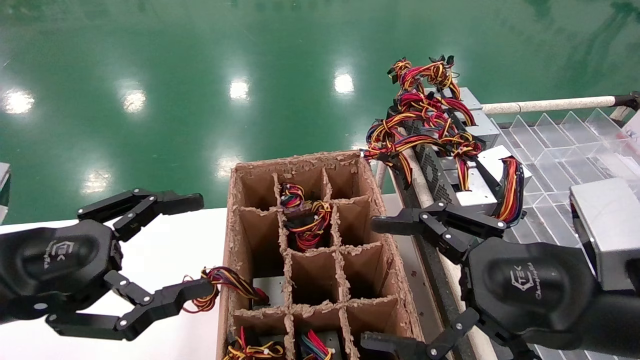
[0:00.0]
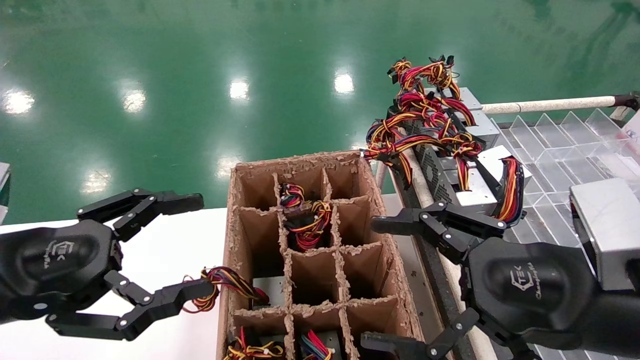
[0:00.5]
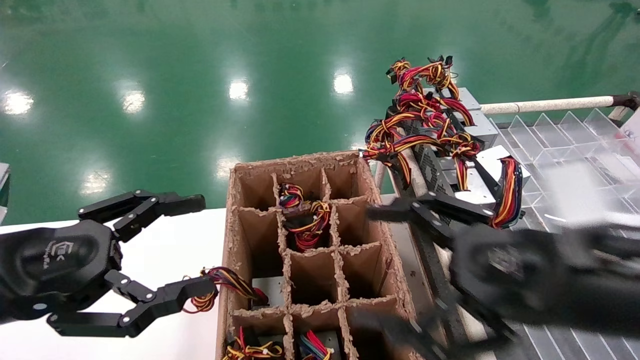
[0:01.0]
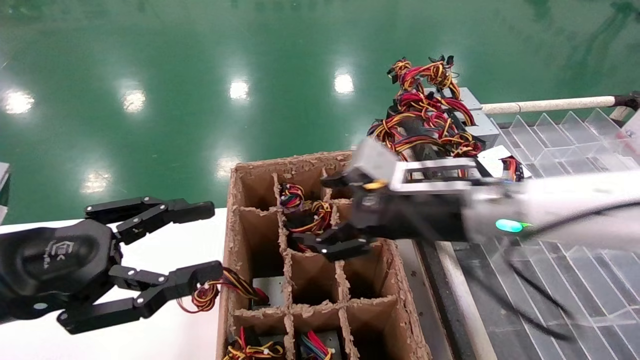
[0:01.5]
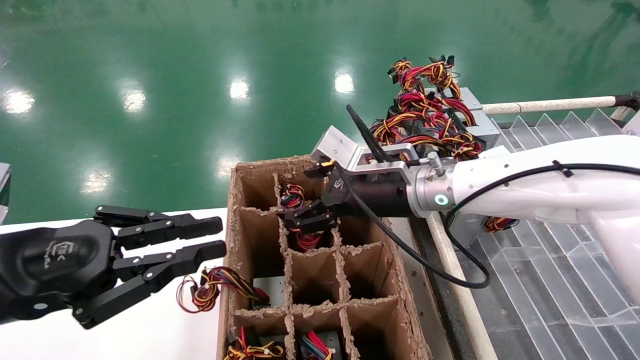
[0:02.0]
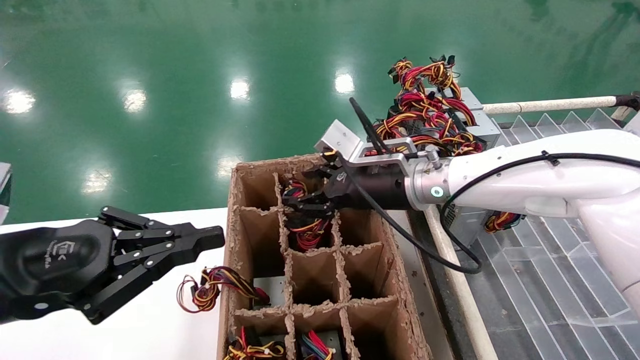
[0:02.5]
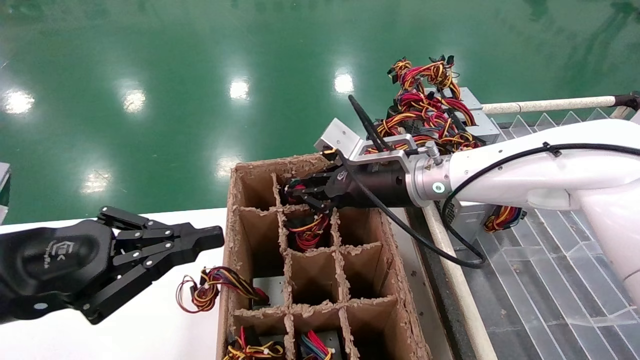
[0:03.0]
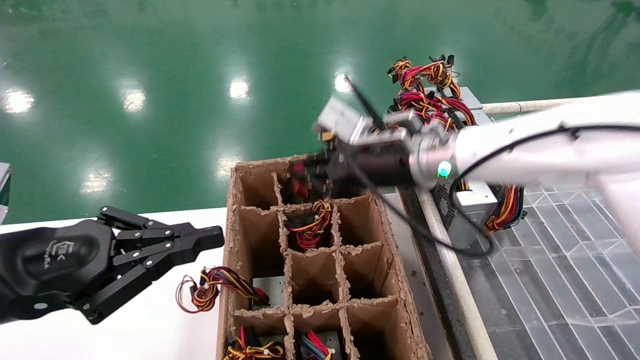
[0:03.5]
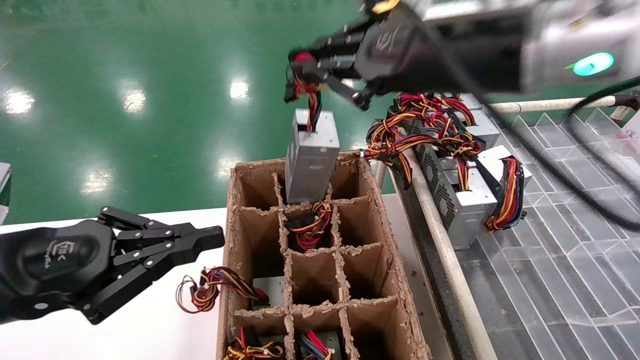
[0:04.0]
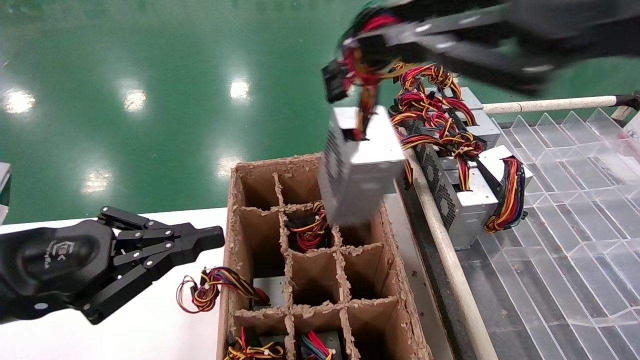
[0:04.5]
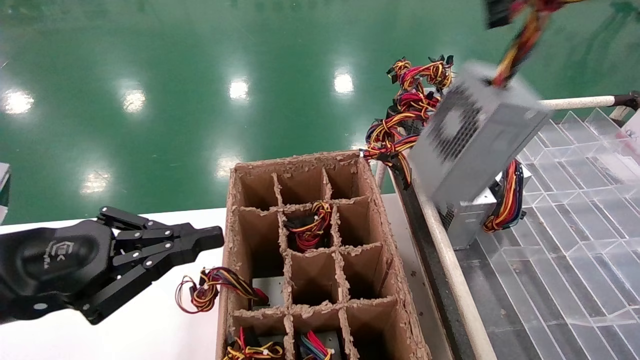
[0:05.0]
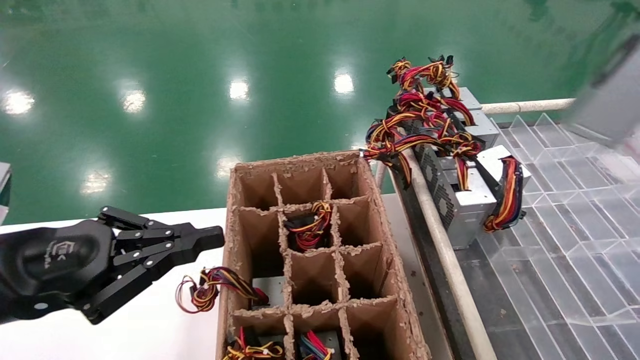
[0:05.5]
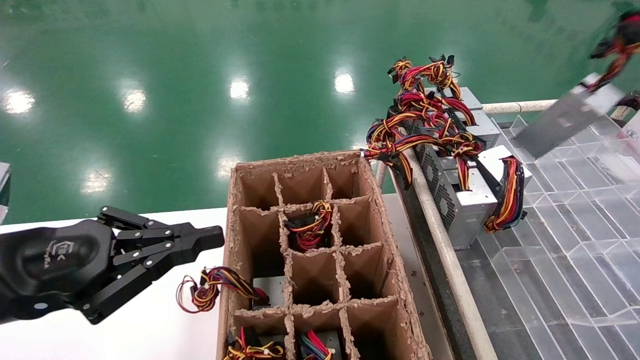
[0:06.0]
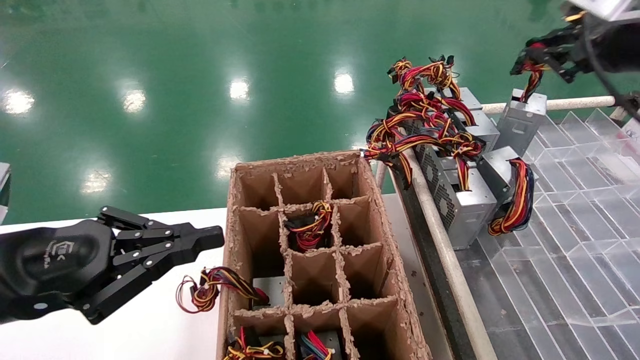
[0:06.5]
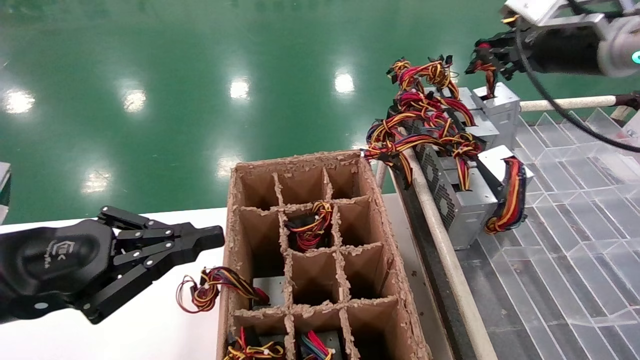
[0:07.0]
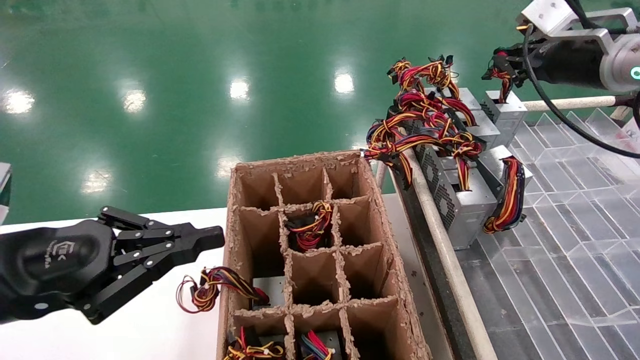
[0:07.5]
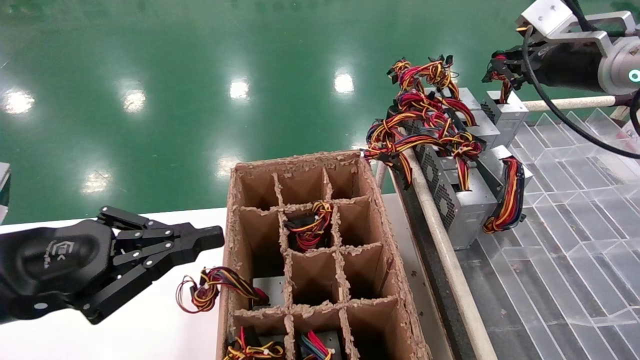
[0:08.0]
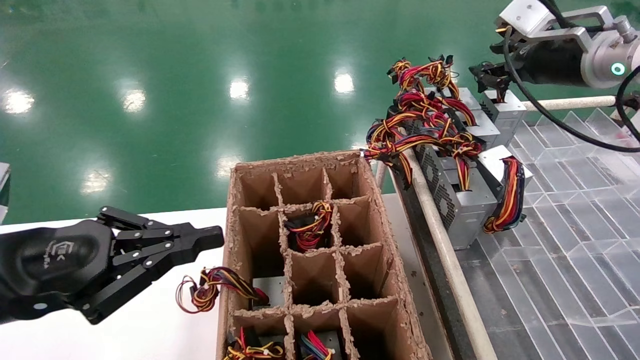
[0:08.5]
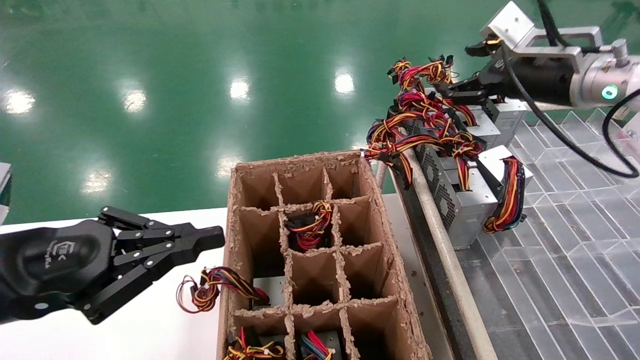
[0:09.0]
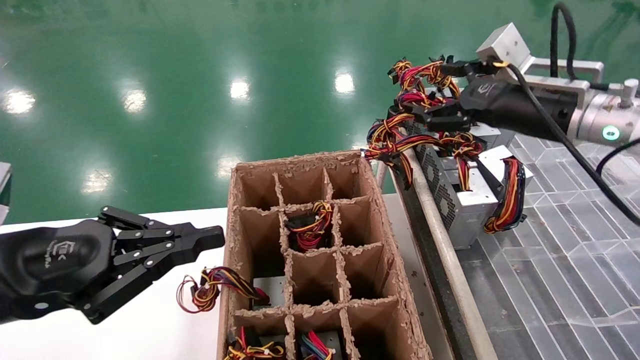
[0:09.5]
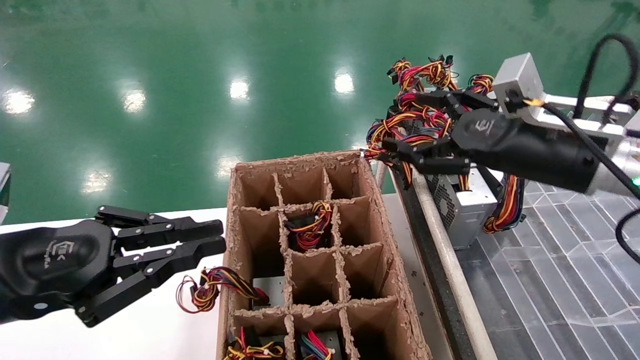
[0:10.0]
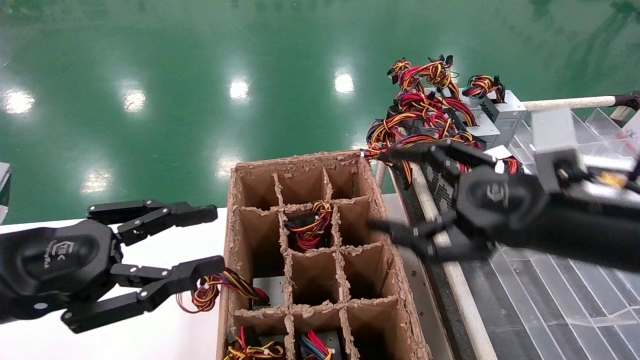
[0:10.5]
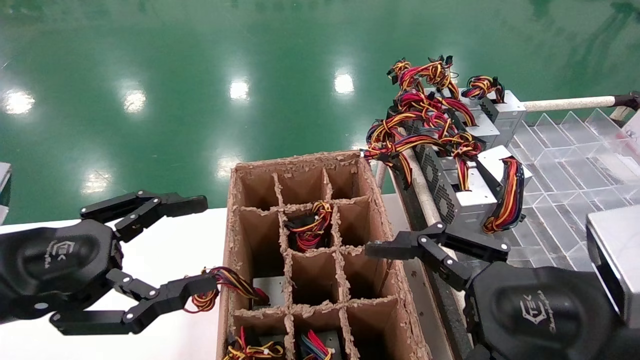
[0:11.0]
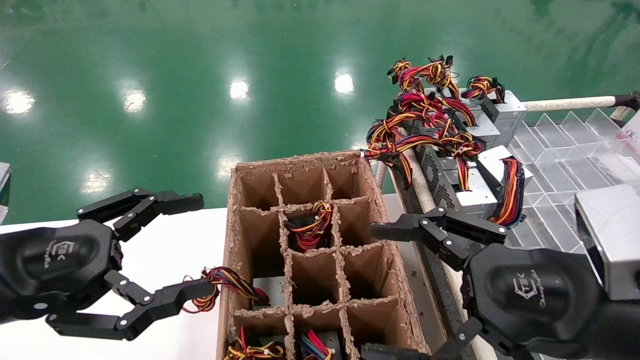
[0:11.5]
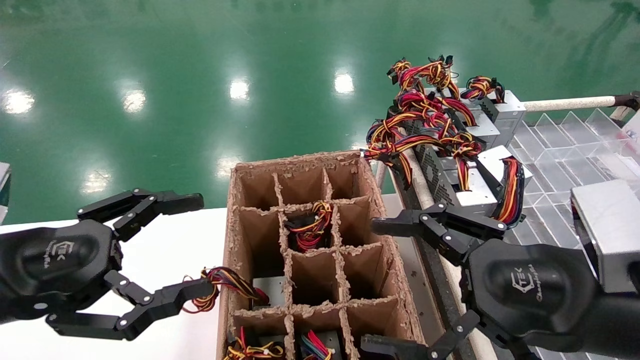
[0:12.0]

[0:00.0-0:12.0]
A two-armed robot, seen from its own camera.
Step, 0:01.5 to 0:03.0: Grab the main unit power supply from the containment box.
Step, 0:03.5 to 0:09.0: Place the main unit power supply in the designated area.
0:00.0 to 0:02.0: The right gripper moves forward and to the left, some 25 cm. The left gripper closes.
0:02.0 to 0:04.0: The right gripper is displaced upward and backward by some 20 cm, and closes.
0:04.0 to 0:06.0: The right gripper goes some 25 cm to the right.
0:06.0 to 0:08.0: The right gripper is displaced forward by roughly 20 cm.
0:08.0 to 0:10.0: The right gripper heads downward, backward and to the left, covering about 15 cm, and opens up.
0:10.0 to 0:12.0: The right gripper heads backward and downward, covering about 15 cm, while the left gripper opens up.

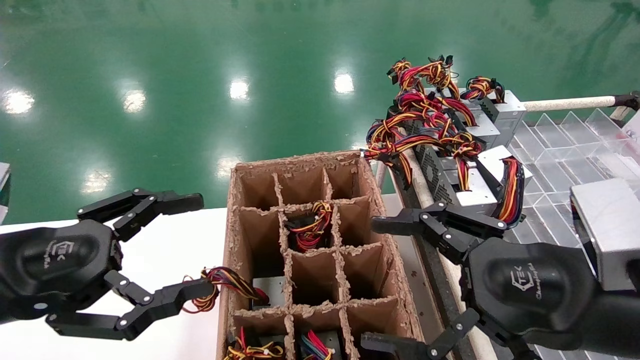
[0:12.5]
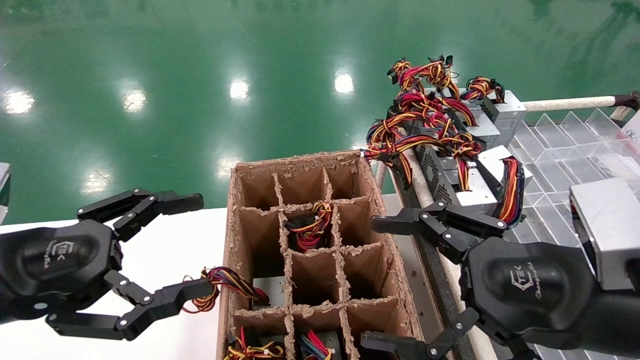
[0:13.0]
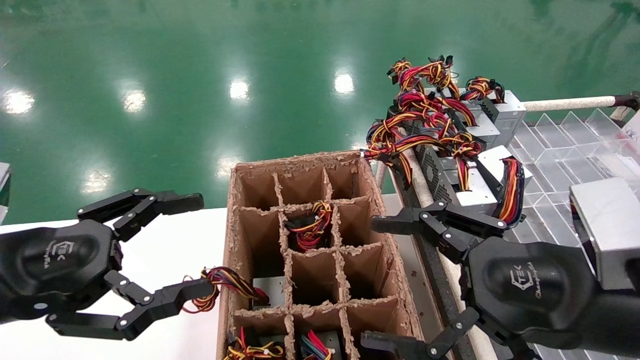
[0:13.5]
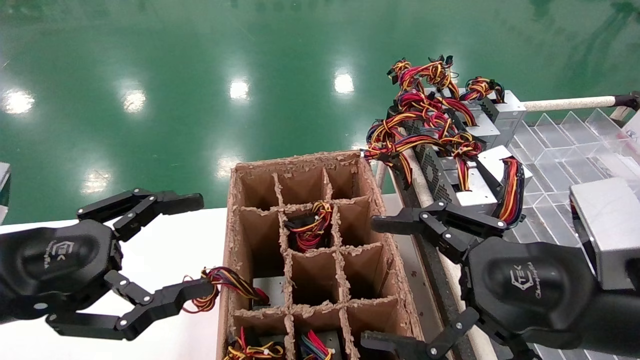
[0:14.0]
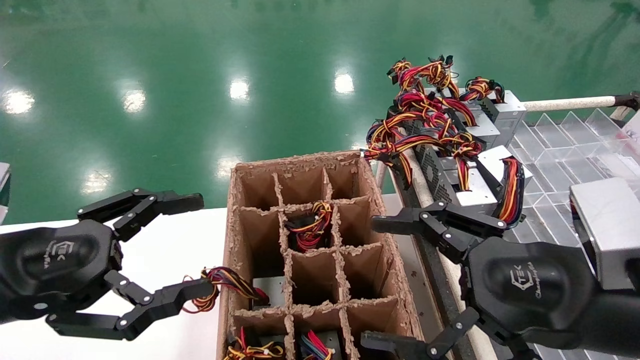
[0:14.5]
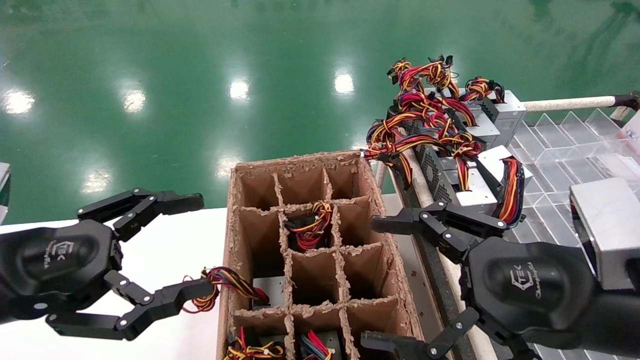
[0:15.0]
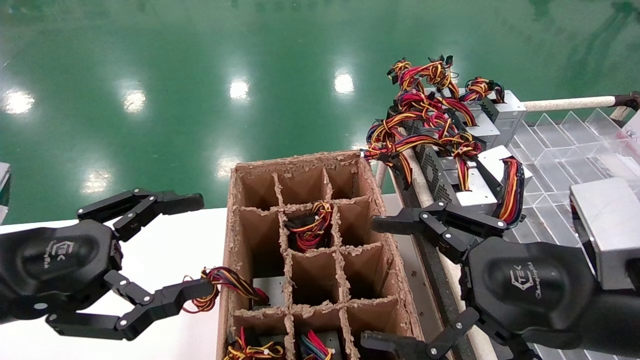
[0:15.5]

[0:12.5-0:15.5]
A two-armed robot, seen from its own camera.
0:12.5 to 0:15.5: Both grippers stay about where they are.

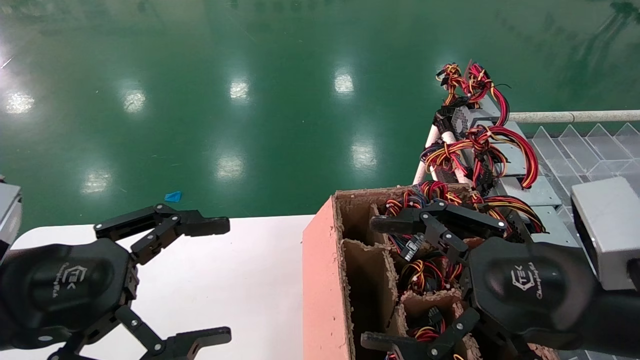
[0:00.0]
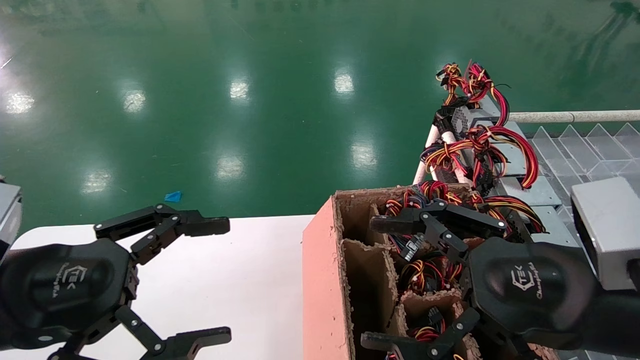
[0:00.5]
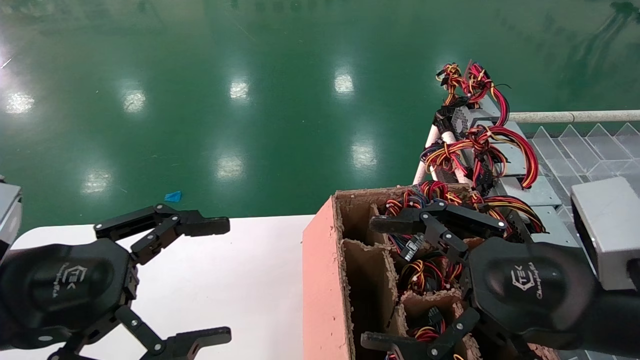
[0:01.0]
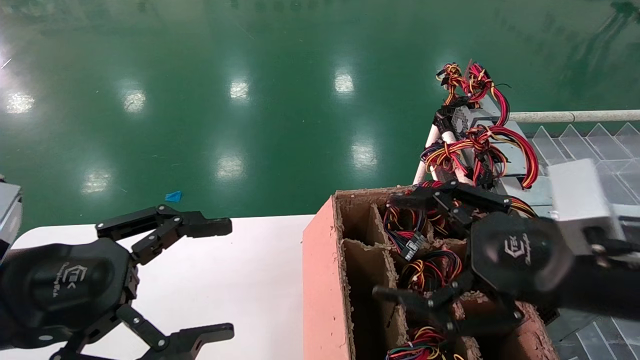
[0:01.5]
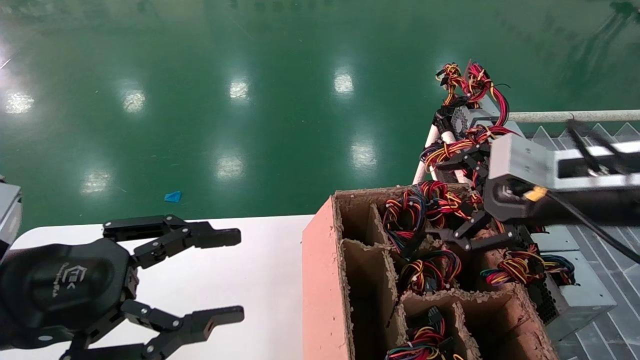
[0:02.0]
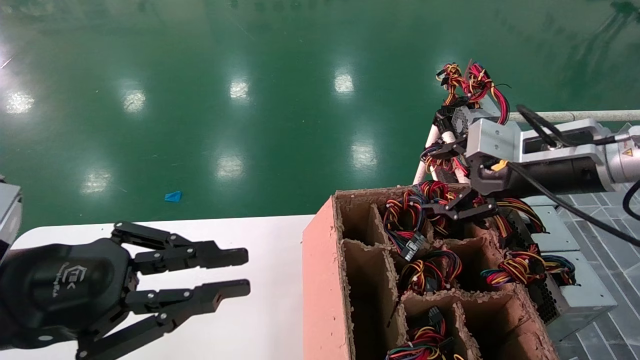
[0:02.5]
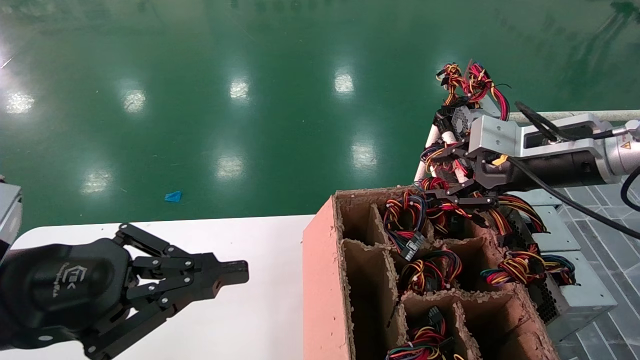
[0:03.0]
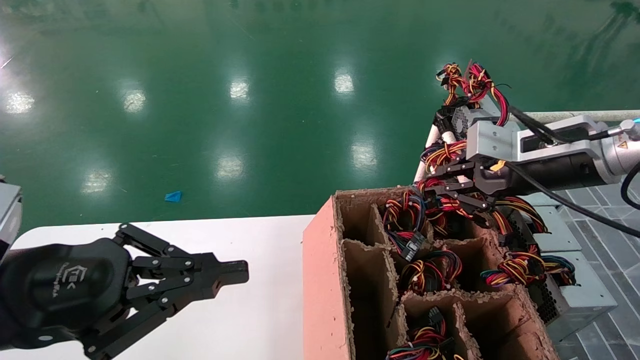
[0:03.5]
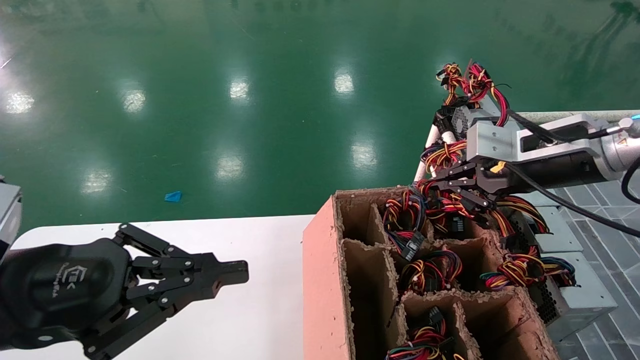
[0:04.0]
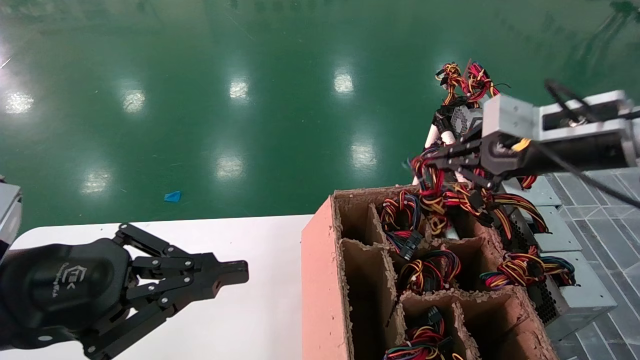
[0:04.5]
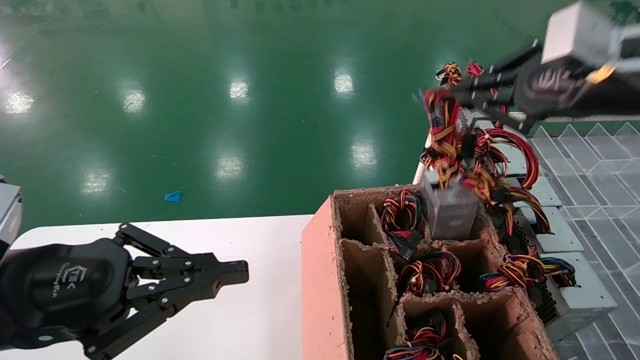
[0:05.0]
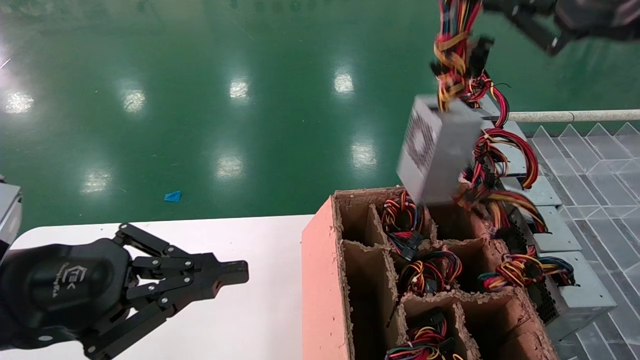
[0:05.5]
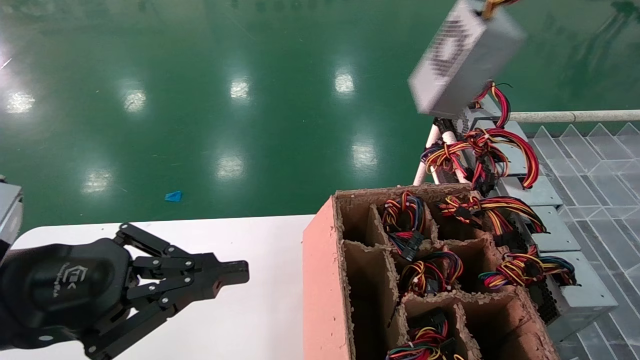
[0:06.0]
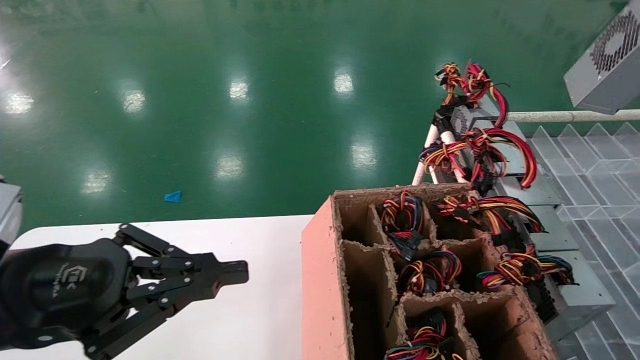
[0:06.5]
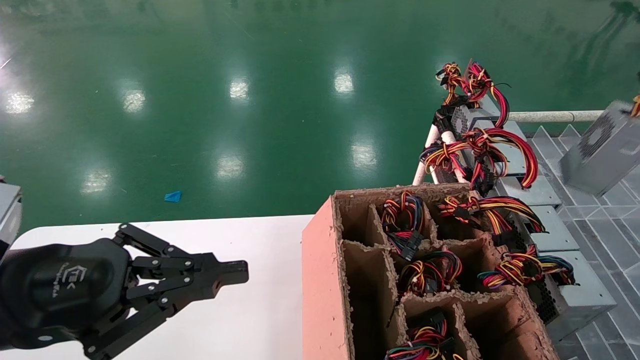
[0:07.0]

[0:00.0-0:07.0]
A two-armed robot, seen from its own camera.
Step, 0:02.0 to 0:03.5: Grab the main unit power supply from the containment box.
0:00.0 to 0:02.0: The right gripper shifts some 15 cm forward, to the right and upward.
0:02.0 to 0:03.5: The right gripper moves forward, some 5 cm, and closes its fingers. Meanwhile the left gripper closes up.
0:03.5 to 0:05.0: The right gripper heads upward and backward, covering about 10 cm.
0:05.0 to 0:07.0: The right gripper shifts some 20 cm to the right.
